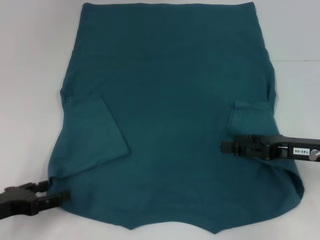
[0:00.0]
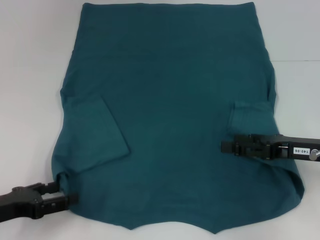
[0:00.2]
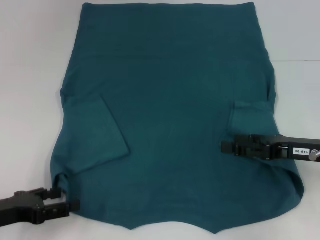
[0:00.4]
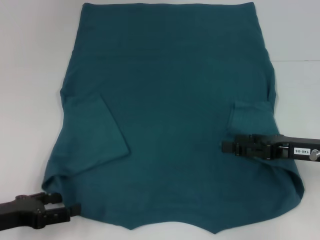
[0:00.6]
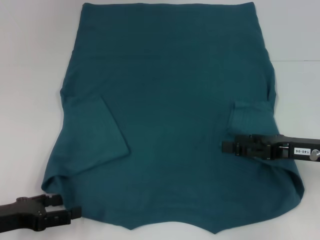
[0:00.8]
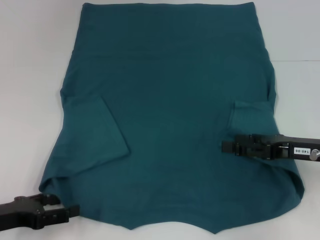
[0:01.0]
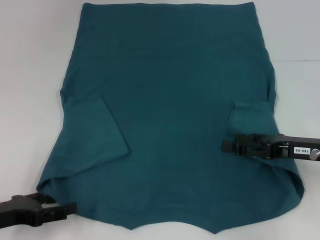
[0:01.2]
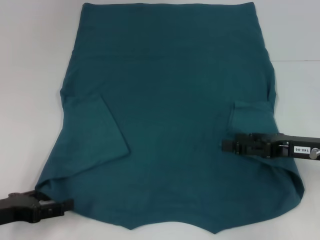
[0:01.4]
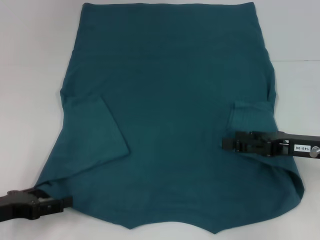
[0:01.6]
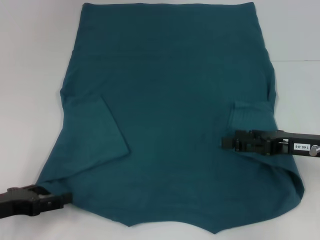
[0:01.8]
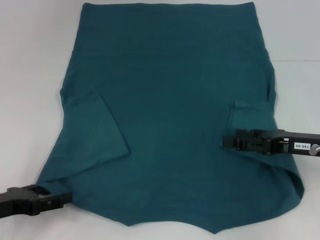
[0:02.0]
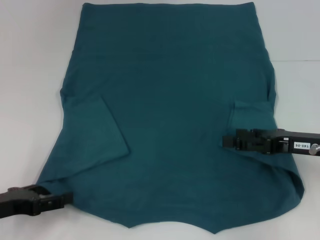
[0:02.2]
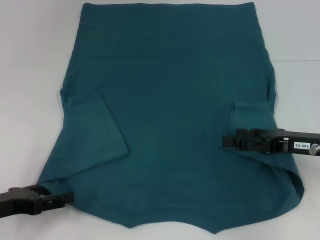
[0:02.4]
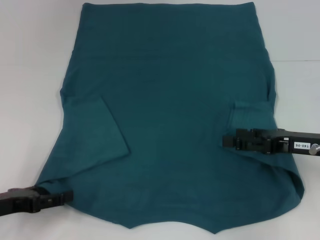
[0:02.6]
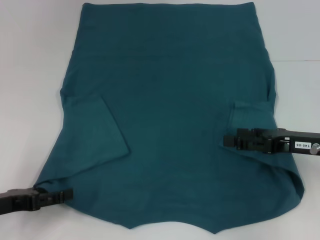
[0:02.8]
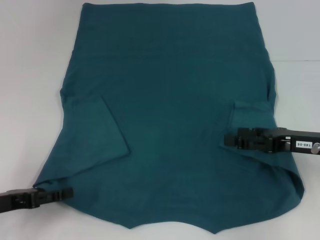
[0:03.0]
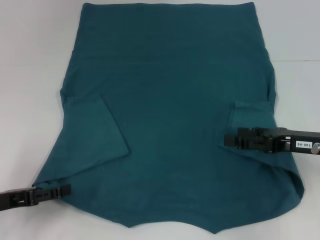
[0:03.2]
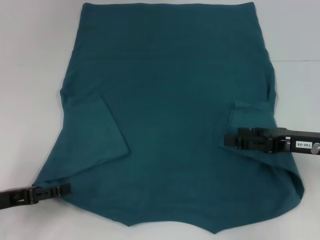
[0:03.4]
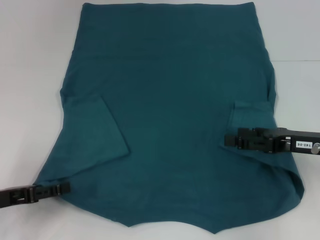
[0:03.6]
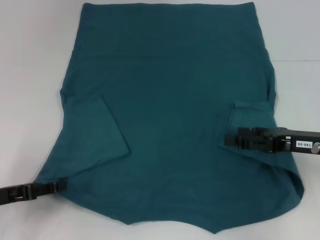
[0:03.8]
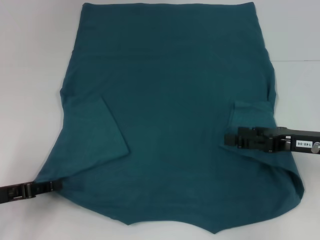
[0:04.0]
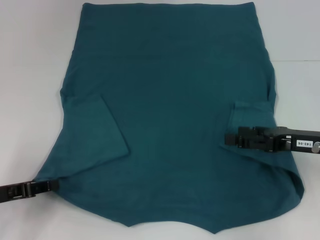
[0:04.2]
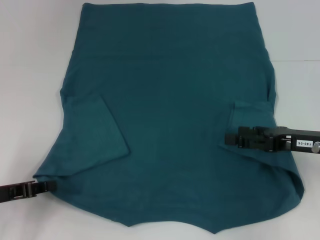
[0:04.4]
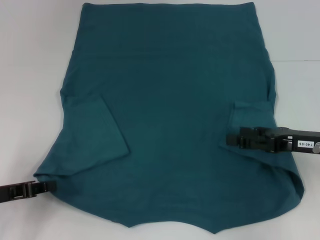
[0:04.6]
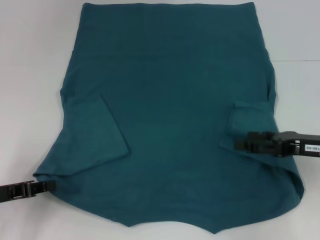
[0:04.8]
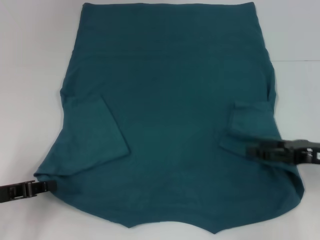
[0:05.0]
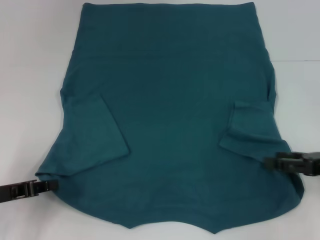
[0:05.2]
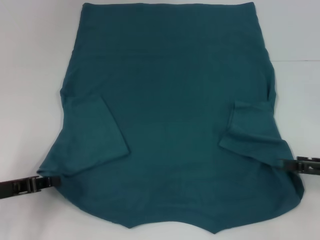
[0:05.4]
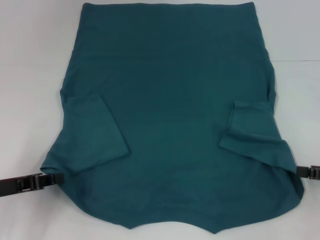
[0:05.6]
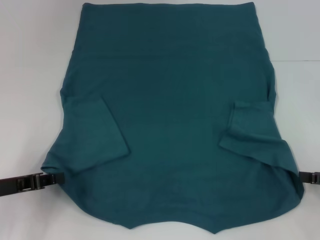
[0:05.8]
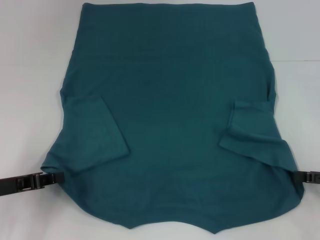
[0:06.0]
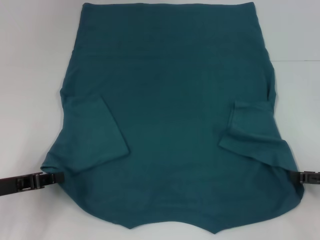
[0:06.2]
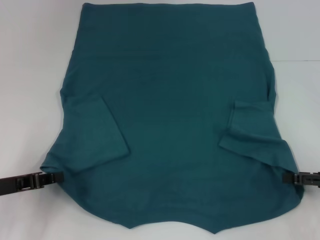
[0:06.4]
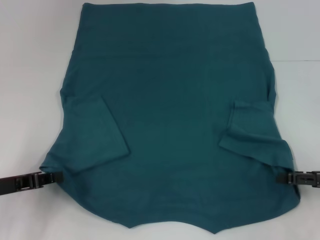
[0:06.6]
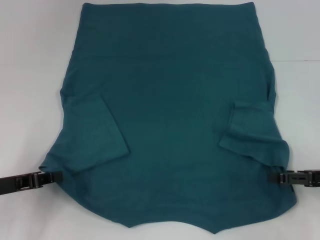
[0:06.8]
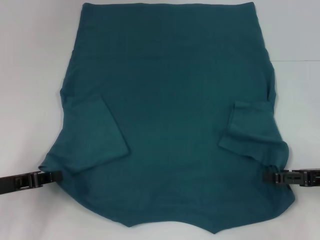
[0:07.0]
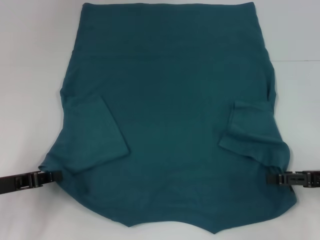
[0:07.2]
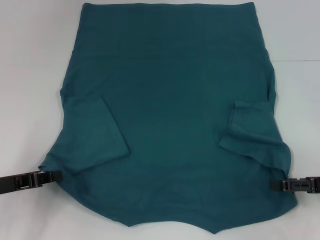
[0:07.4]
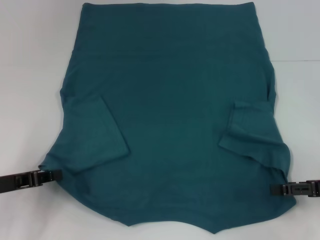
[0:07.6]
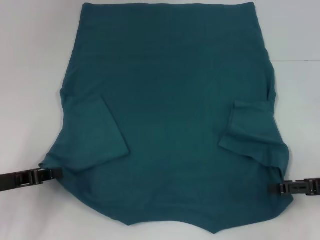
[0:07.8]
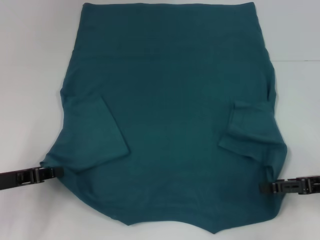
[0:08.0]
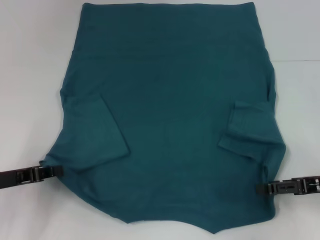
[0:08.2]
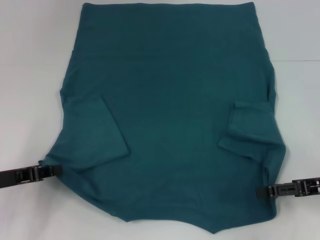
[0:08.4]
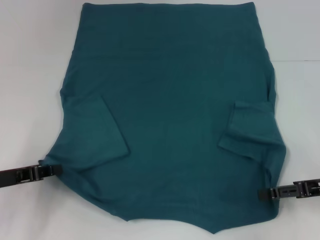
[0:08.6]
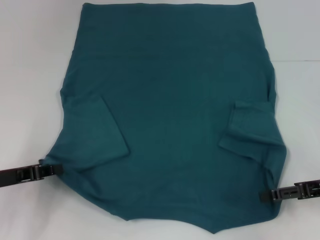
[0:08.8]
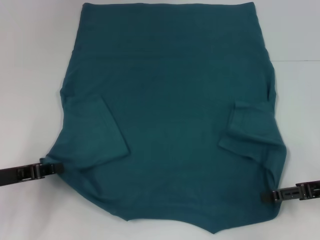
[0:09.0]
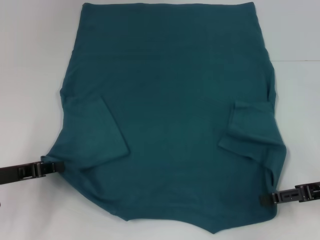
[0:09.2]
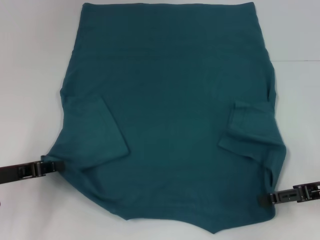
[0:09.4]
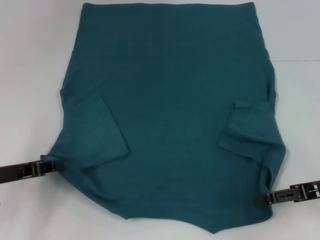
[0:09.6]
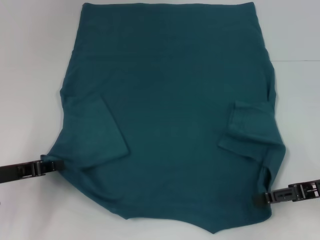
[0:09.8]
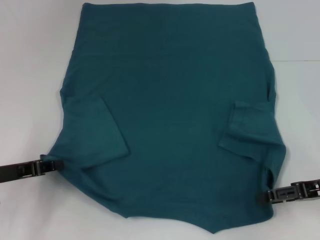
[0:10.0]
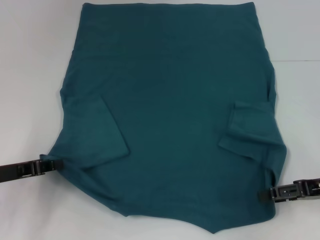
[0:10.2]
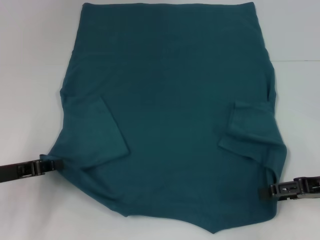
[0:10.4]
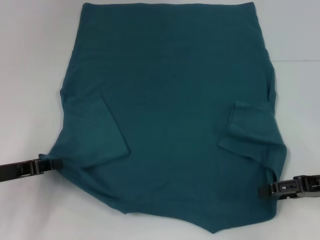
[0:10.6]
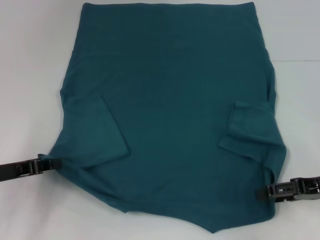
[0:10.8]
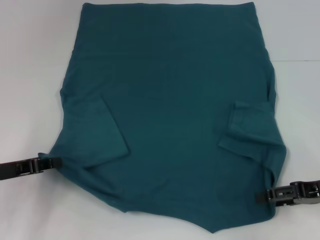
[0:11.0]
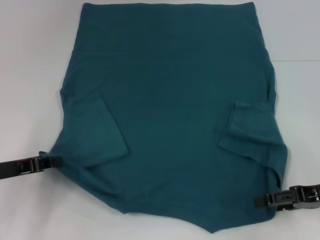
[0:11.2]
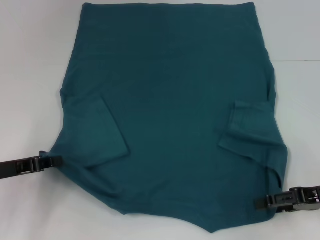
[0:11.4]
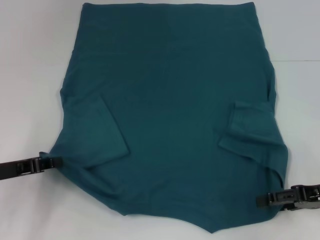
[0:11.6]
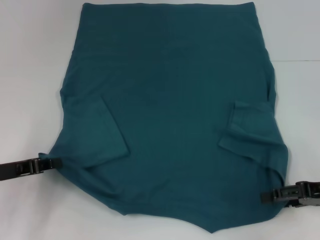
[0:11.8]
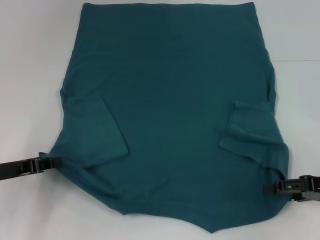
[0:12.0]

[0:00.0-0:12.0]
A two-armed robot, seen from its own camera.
Step, 0:00.0 to 0:04.4: Grab the bottom left corner with your left hand.
0:00.0 to 0:03.0: There are only small adjustments of the grippers.
0:03.0 to 0:04.4: The left gripper closes up.
0:04.4 to 0:06.0: The right gripper is displaced to the right by some 10 cm.
0:06.0 to 0:09.0: There are only small adjustments of the grippers.
0:09.0 to 0:12.0: The grippers stay close to where they were, moving slightly.

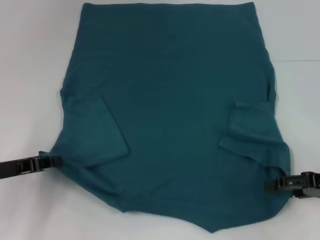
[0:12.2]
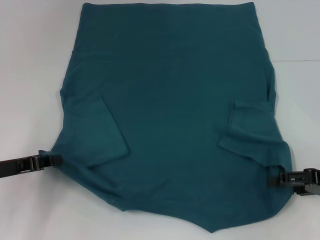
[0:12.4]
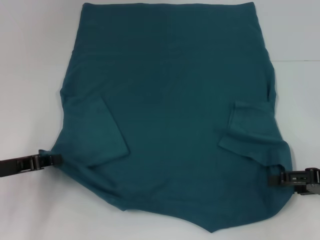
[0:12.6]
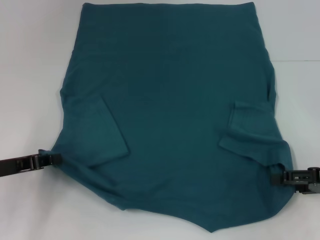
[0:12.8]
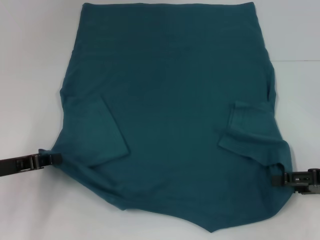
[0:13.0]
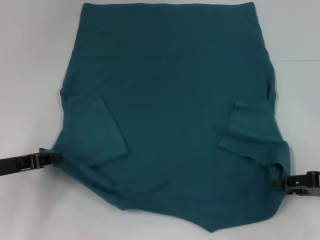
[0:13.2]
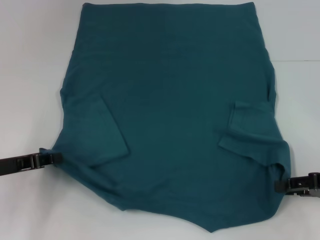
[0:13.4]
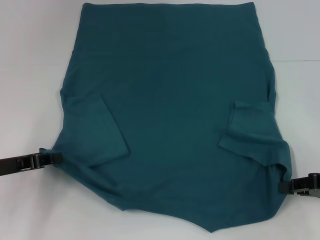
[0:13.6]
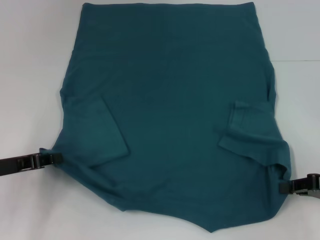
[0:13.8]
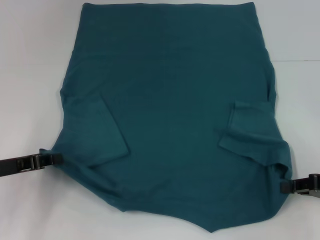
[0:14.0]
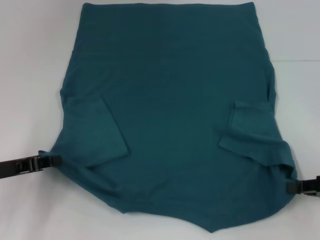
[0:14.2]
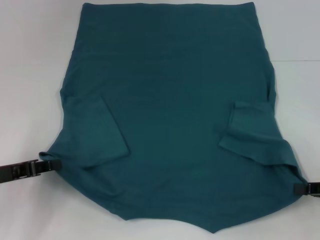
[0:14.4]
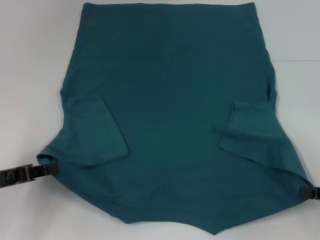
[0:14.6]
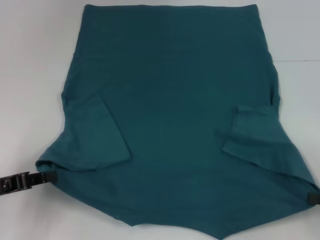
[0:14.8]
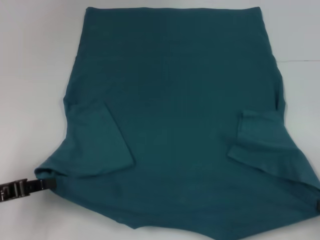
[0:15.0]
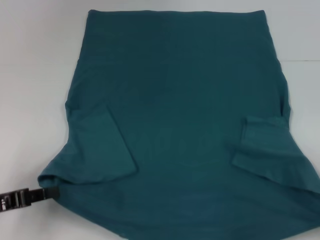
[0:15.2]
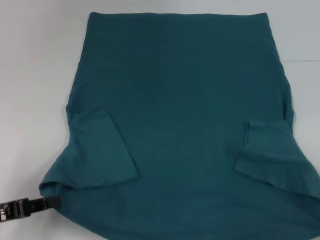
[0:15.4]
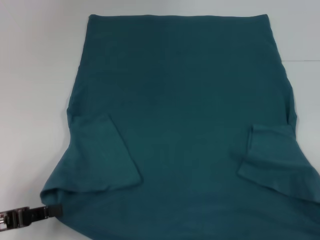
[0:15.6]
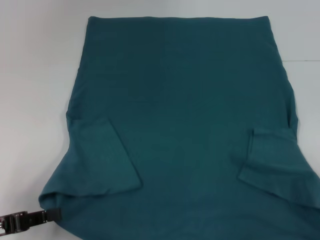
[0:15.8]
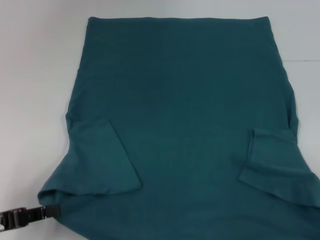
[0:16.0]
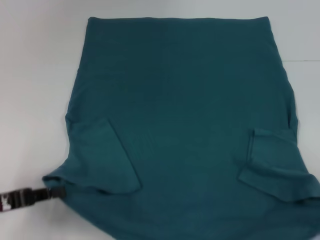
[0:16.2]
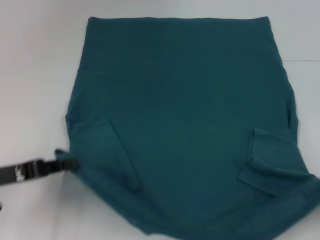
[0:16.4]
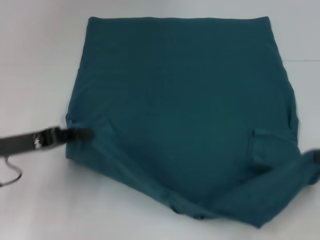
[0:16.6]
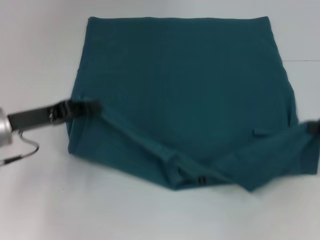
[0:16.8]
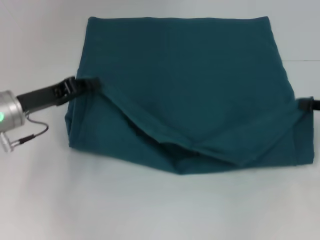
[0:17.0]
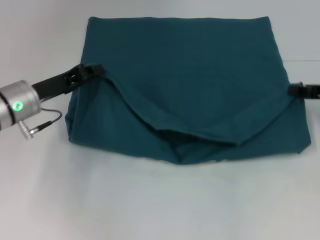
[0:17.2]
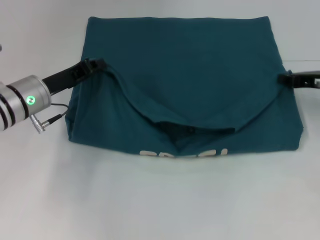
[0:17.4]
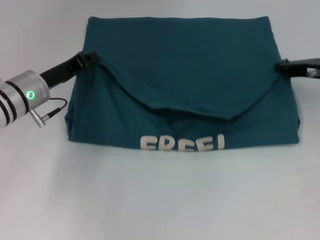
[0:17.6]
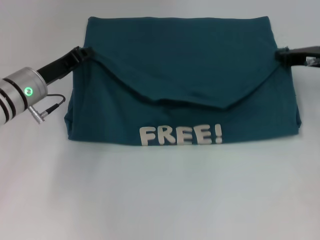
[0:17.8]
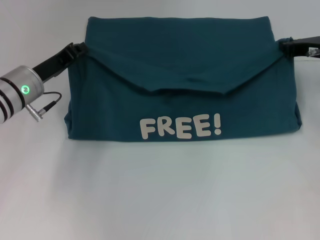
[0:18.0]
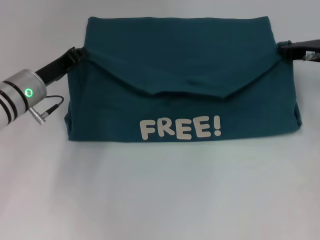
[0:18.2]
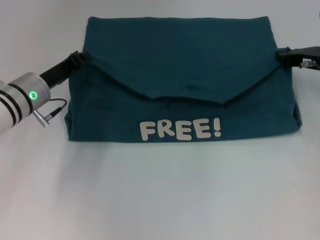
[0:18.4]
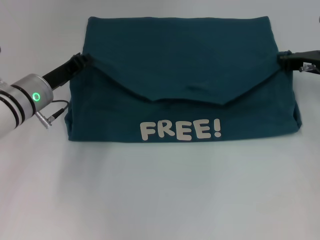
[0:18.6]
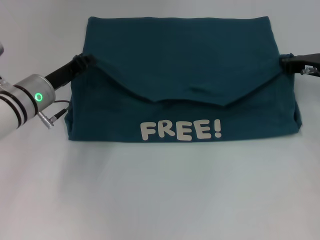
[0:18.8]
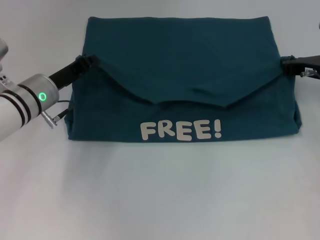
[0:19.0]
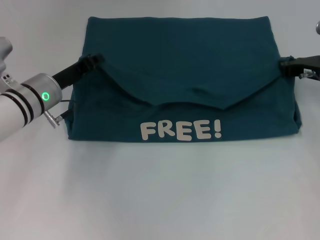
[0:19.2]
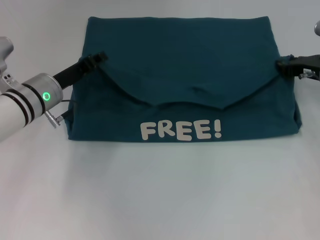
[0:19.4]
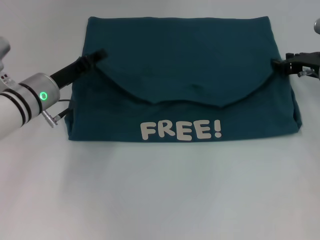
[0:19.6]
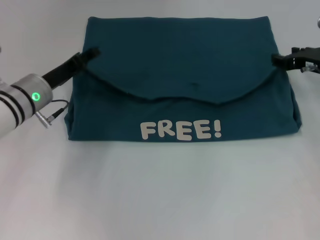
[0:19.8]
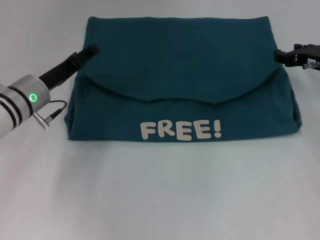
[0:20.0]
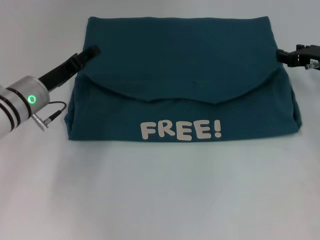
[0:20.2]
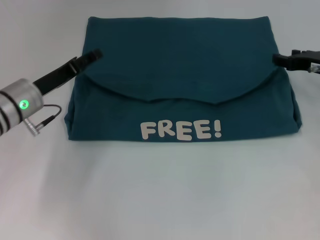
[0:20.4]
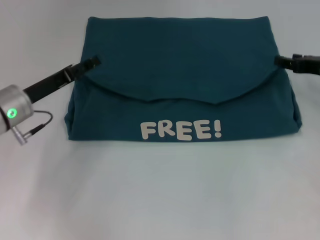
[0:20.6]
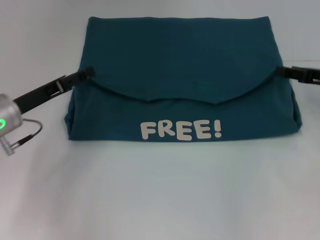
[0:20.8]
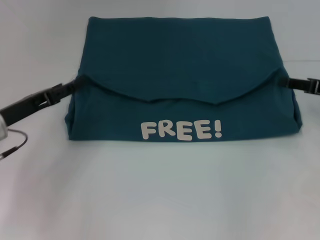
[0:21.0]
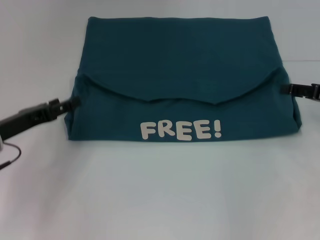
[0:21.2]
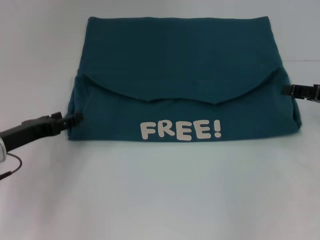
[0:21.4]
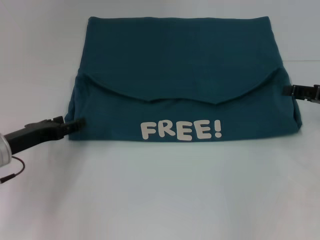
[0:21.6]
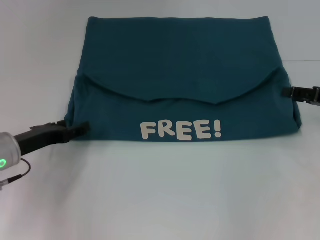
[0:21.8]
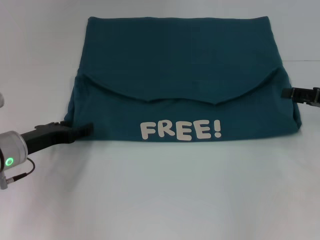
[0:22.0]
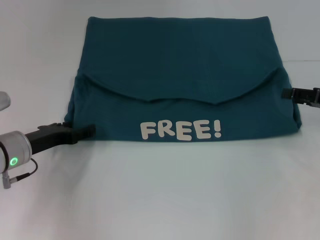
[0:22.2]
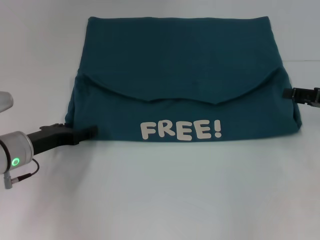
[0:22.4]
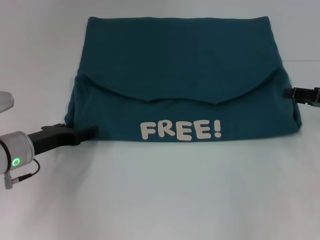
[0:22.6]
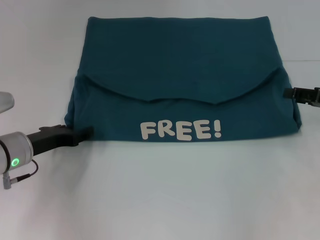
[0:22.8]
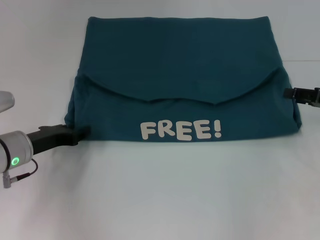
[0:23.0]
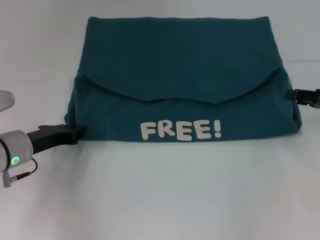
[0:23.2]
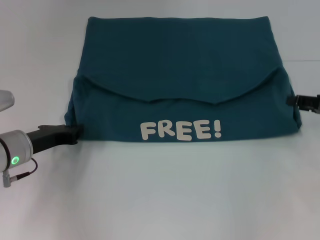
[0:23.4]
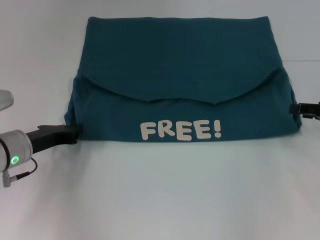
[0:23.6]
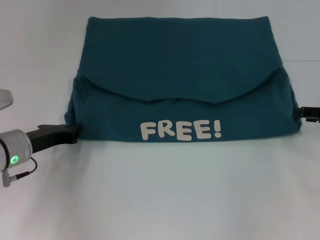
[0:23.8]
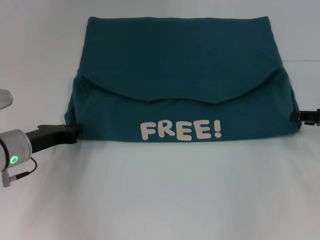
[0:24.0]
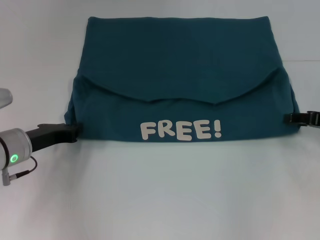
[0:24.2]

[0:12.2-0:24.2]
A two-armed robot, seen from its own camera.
Step, 0:12.2 to 0:14.2: Grab the bottom right corner with your right hand.
Step, 0:14.4 to 0:19.8: Fold the clothes to the left.
Step, 0:14.4 to 0:19.8: Fold the clothes to the right.
0:12.2 to 0:13.8: The right gripper closes.
0:13.8 to 0:15.2: The right gripper goes approximately 10 cm backward and to the right. Meanwhile the left gripper is displaced backward by roughly 5 cm.
0:15.2 to 0:16.6: Both grippers travel together forward, about 10 cm.
0:16.6 to 0:18.2: The right gripper goes about 20 cm forward and to the left, while the left gripper shifts some 10 cm forward and to the right.
0:18.2 to 0:19.8: The right gripper opens up, while the left gripper opens its fingers.
0:19.8 to 0:21.2: The right gripper goes some 10 cm backward and to the right; the left gripper heads backward and to the left, covering roughly 10 cm.
0:21.2 to 0:22.6: The grippers make only small movements.
0:22.6 to 0:24.2: The left gripper closes up.
